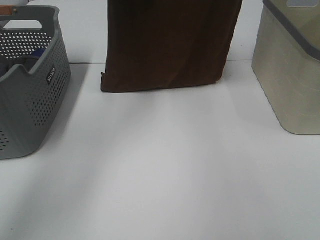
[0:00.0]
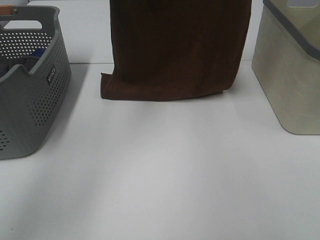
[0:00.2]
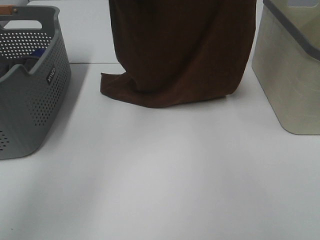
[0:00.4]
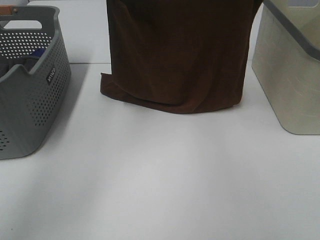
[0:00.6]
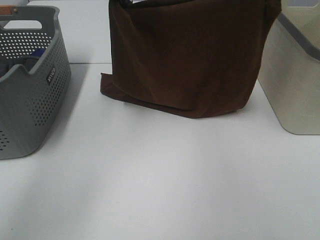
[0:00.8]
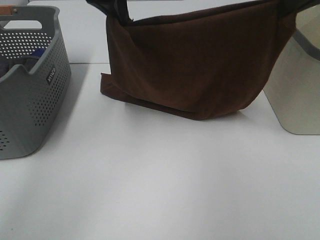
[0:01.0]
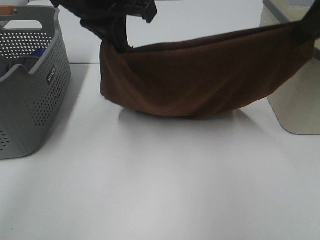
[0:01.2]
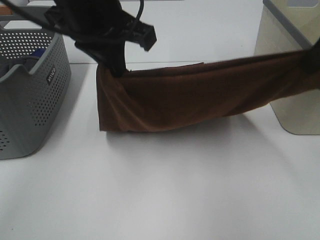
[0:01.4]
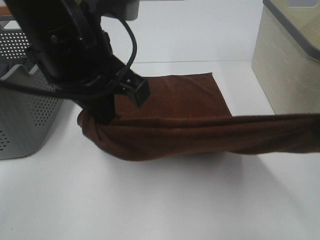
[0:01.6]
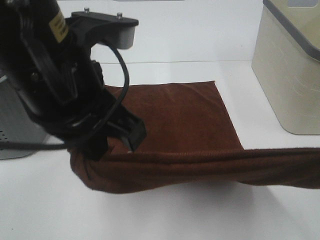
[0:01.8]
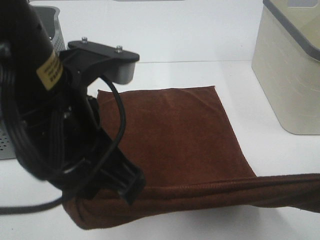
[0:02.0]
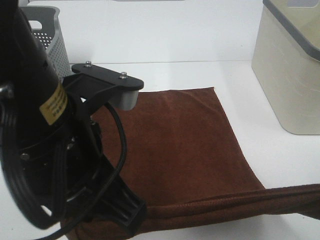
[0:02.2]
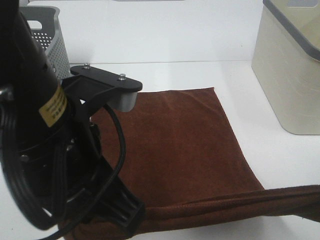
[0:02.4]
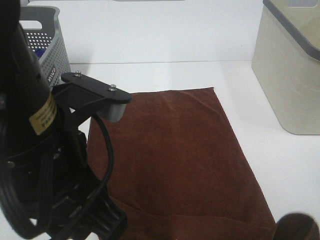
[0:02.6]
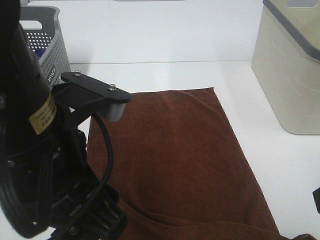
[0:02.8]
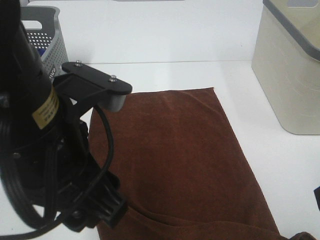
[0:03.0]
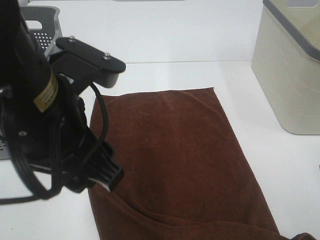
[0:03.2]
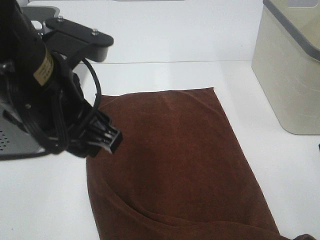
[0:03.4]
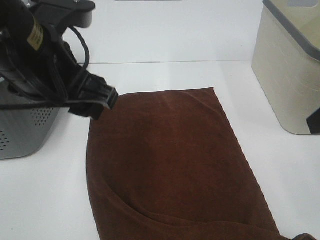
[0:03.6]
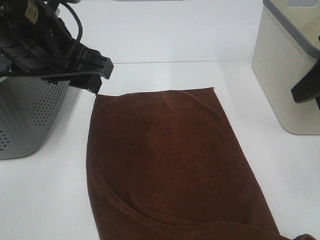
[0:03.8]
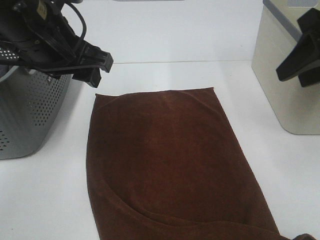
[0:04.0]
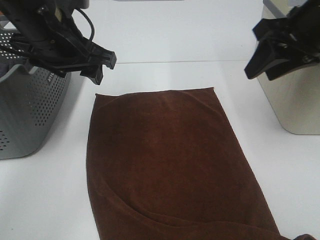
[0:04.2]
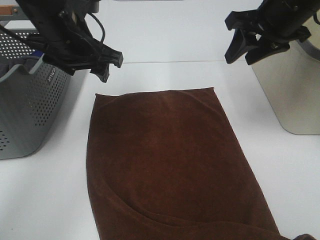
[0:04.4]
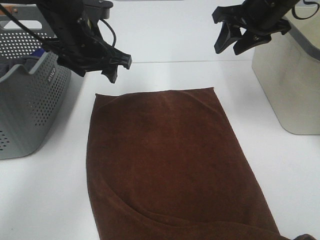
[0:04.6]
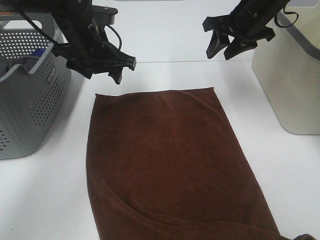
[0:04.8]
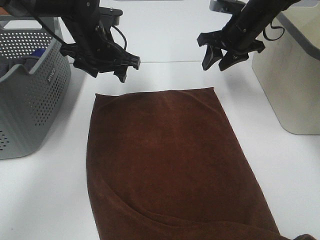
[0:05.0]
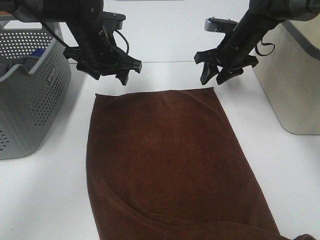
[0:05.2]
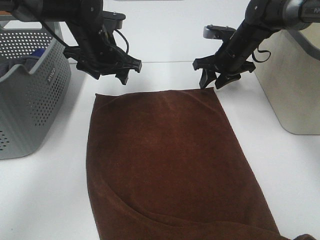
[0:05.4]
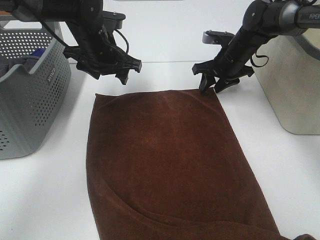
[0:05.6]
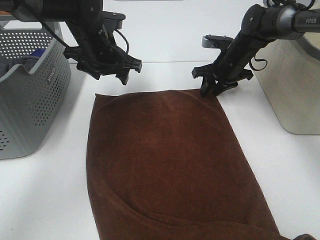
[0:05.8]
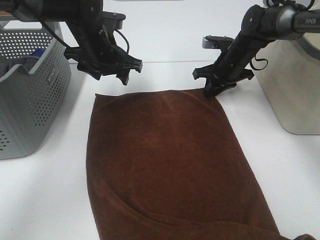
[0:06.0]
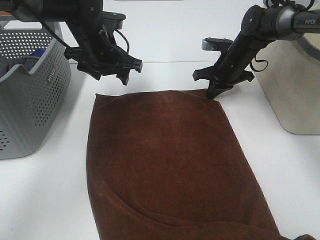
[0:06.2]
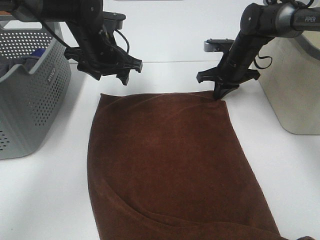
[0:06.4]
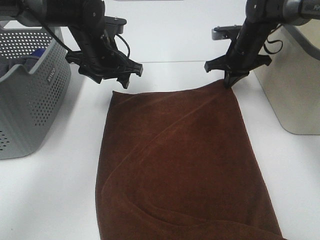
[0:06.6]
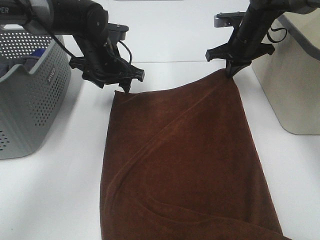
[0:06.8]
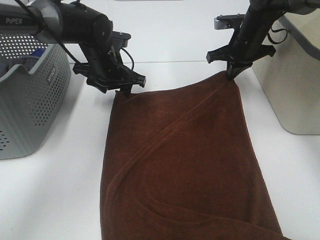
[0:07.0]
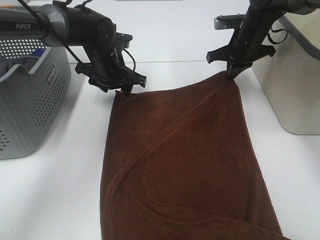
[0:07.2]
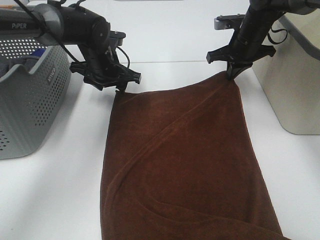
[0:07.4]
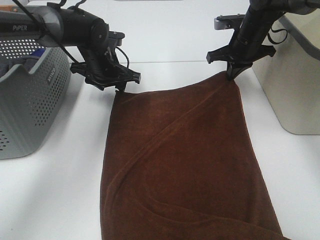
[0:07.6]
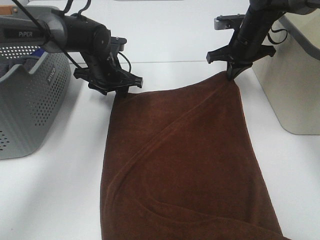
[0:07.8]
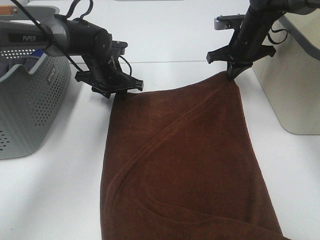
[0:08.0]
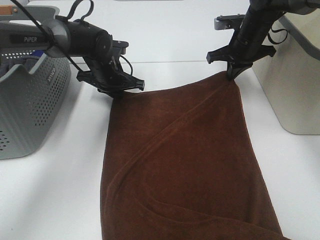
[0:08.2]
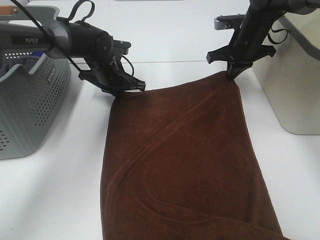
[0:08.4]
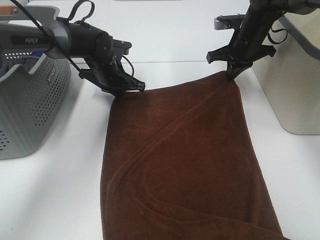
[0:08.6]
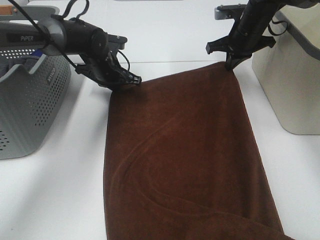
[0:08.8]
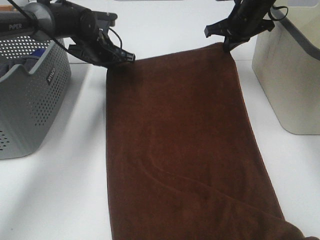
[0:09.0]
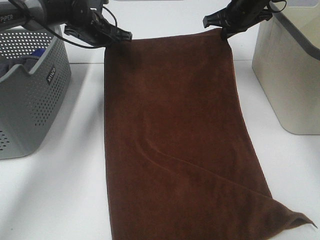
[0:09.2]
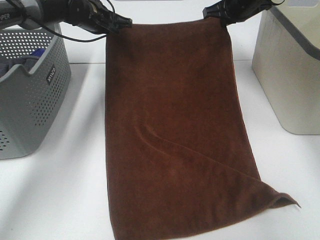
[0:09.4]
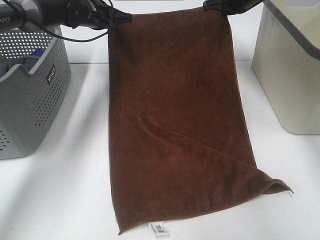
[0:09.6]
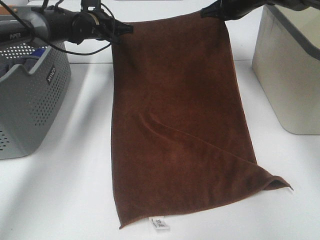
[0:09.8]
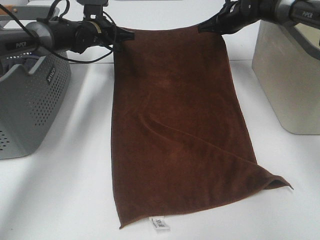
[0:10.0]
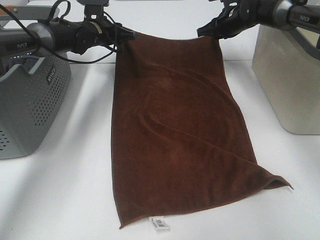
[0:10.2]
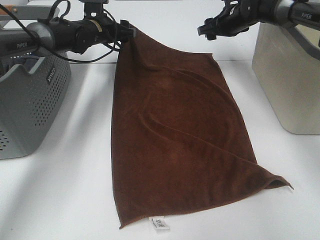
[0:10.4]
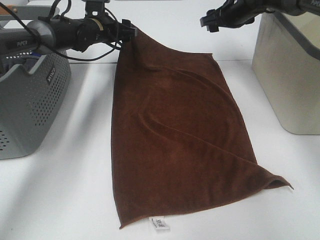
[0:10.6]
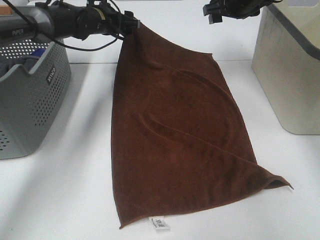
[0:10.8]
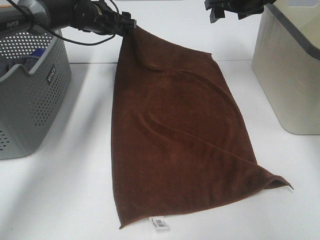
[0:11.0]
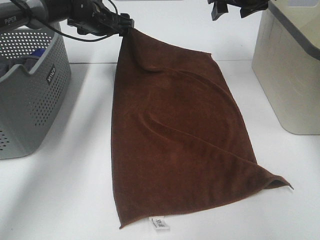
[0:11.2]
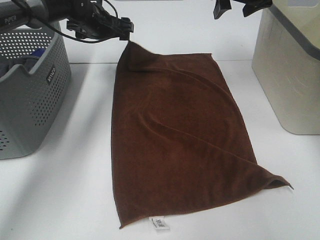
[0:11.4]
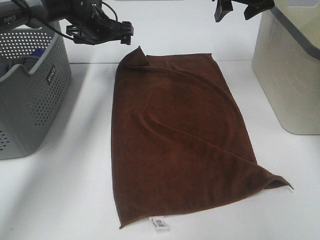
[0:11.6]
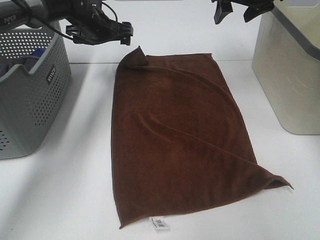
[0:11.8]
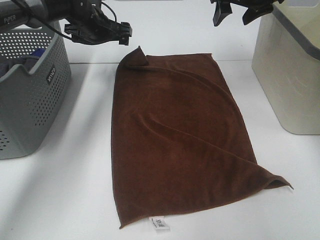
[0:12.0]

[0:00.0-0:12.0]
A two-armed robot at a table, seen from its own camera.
Task of the whole recording: Remove the towel and place it.
Step, 0:00.0 to 0:05.6: Left hand:adjust the brown towel.
Step, 0:00.0 to 0:05.6: Right hand:adjust the brown towel.
0:00.0 to 0:01.6: The left gripper heads backward, covering about 25 cm. The right gripper shifts some 30 cm backward and downward.
0:01.6 to 0:03.0: The grippers both shift backward by roughly 5 cm. The right gripper opens up; the left gripper opens.
0:03.0 to 0:04.4: Both grippers travel together forward, about 25 cm.
0:04.4 to 0:06.0: The right gripper is displaced downward and forward by roughly 20 cm, and closes up; the left gripper is displaced forward and downward by approximately 10 cm.
0:06.0 to 0:07.6: The right gripper shifts approximately 5 cm upward, while the left gripper is displaced downward by roughly 5 cm.
0:07.6 to 0:09.0: The right gripper ends up roughly 5 cm from where it was. Meanwhile the left gripper shifts by approximately 5 cm, and closes its fingers.
0:09.0 to 0:10.4: The left gripper opens up. The right gripper changes place by approximately 5 cm, and opens up.
0:10.4 to 0:12.0: The right gripper travels upward and backward by roughly 15 cm.

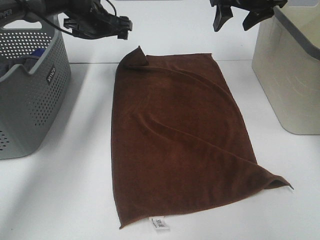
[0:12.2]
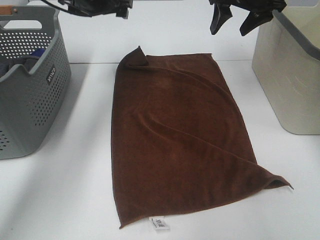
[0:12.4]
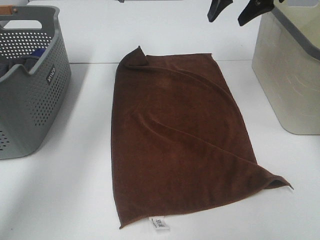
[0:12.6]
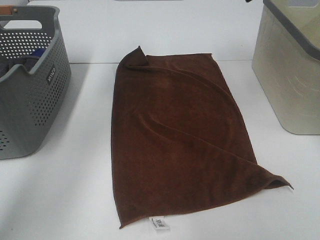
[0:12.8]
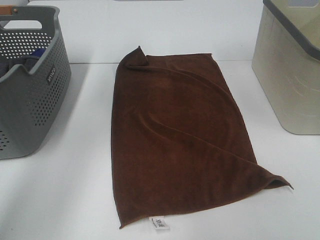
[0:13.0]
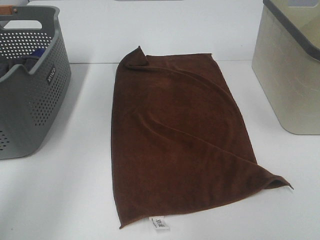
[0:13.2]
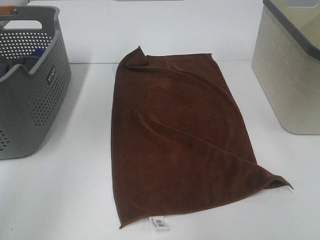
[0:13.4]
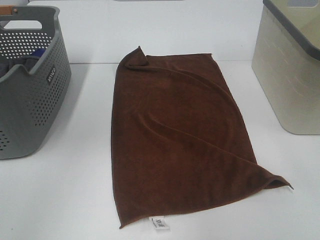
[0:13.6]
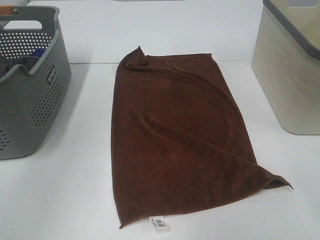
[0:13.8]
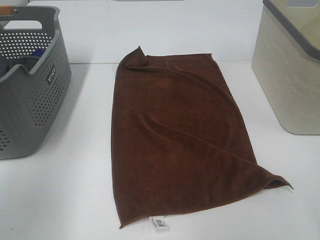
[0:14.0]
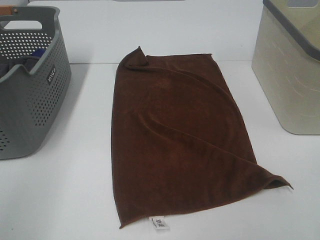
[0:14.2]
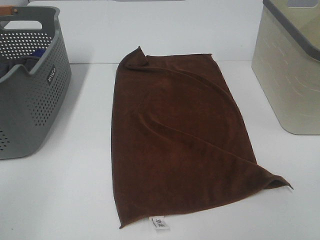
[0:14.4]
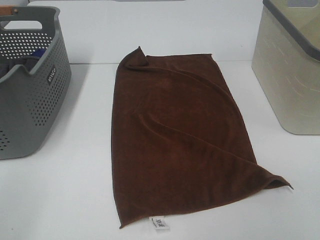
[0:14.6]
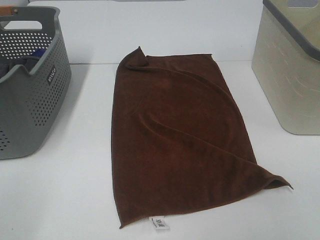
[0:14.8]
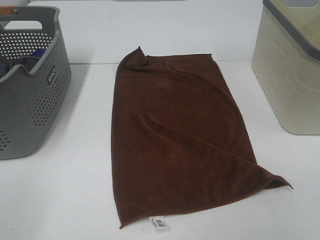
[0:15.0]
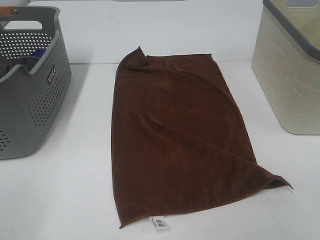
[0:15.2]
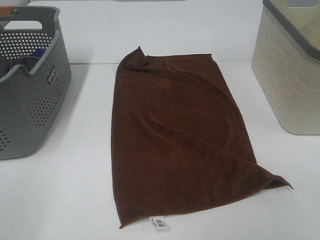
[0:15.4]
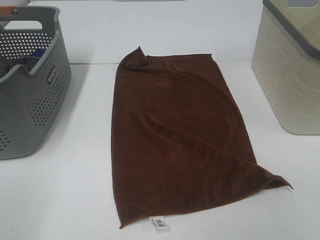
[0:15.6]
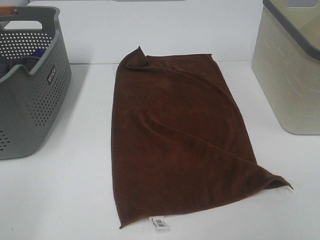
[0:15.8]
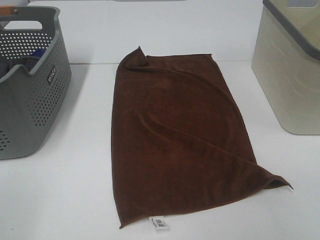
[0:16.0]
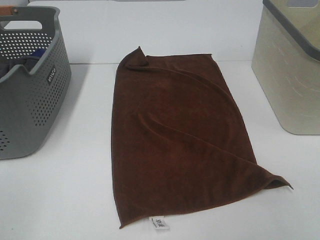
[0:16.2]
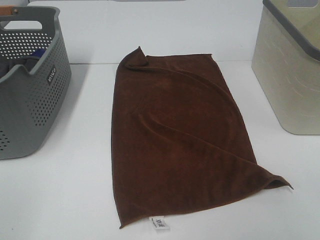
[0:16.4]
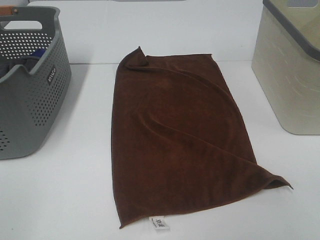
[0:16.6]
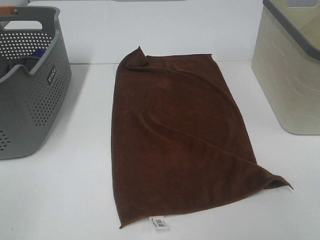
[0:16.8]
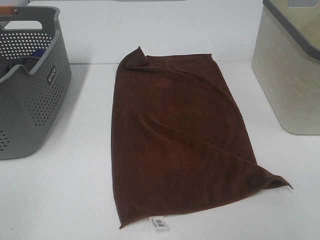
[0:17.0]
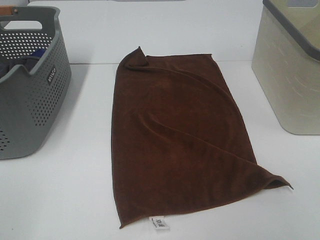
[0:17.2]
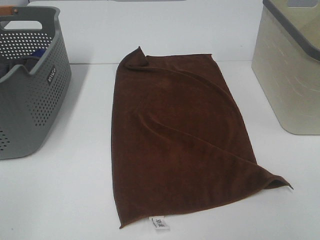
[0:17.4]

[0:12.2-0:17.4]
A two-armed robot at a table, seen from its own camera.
Task of the whole recording: Remove the towel and place it.
0:12.2 to 0:14.0: Both grippers travel together backward, approximately 40 cm.
0:14.0 to 0:15.6: The left gripper moves backward and downward, about 15 cm.

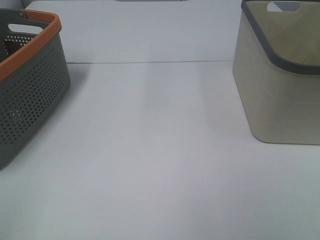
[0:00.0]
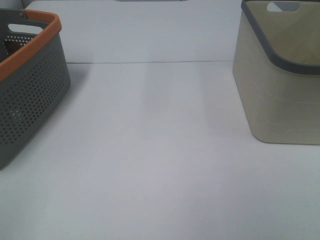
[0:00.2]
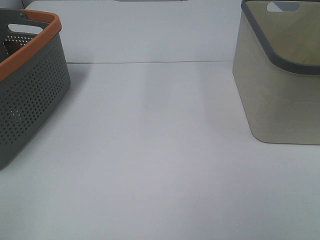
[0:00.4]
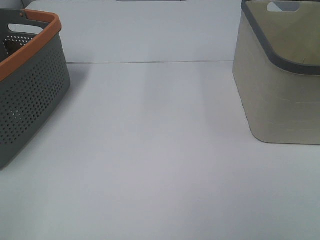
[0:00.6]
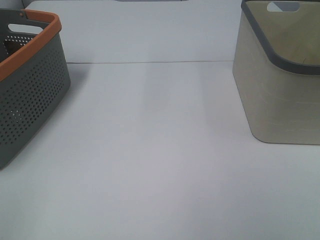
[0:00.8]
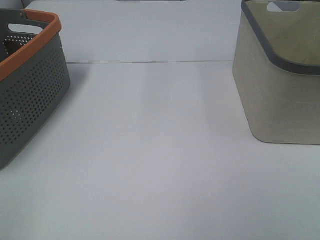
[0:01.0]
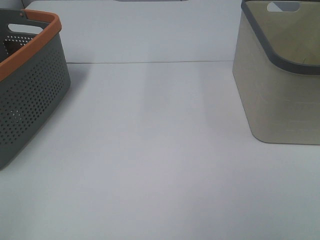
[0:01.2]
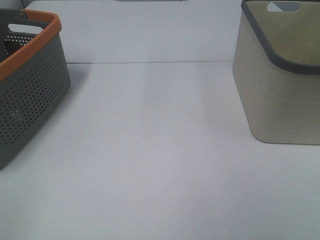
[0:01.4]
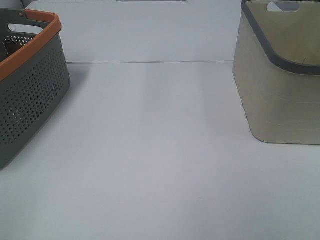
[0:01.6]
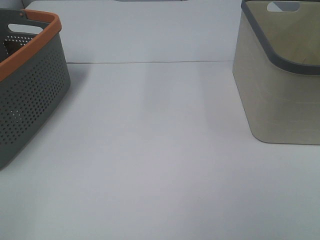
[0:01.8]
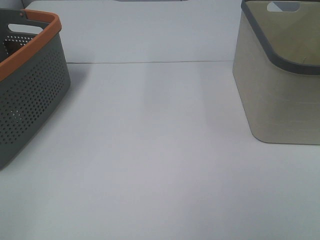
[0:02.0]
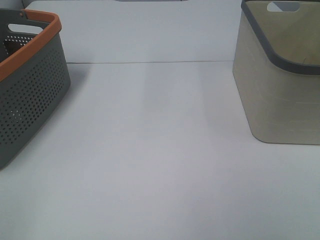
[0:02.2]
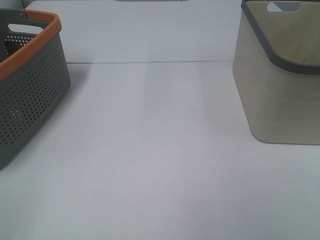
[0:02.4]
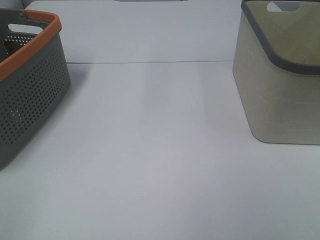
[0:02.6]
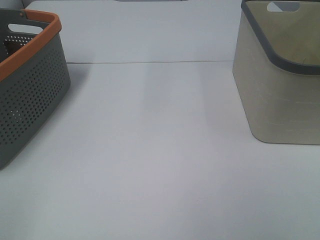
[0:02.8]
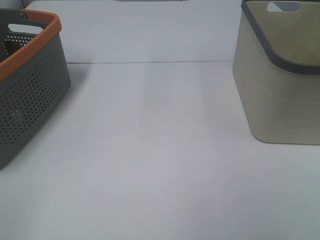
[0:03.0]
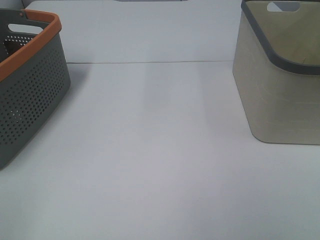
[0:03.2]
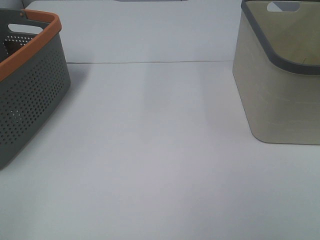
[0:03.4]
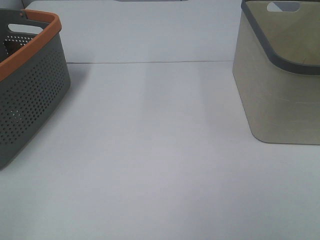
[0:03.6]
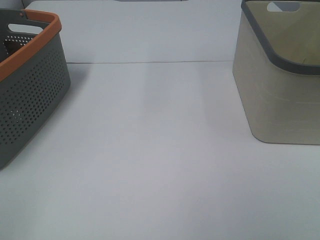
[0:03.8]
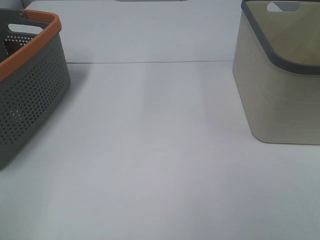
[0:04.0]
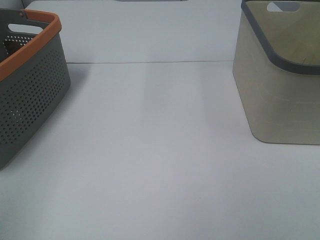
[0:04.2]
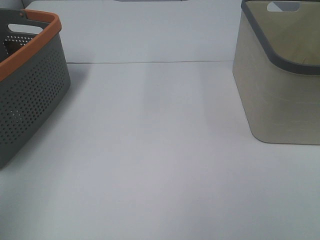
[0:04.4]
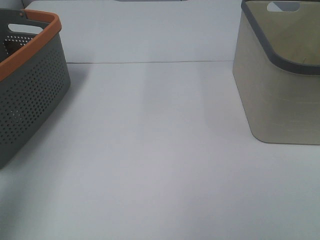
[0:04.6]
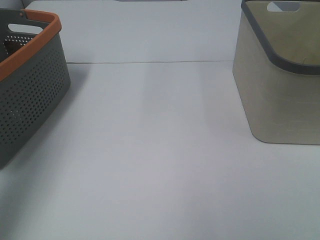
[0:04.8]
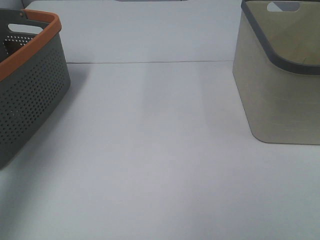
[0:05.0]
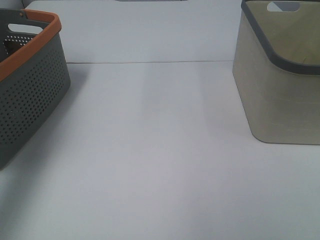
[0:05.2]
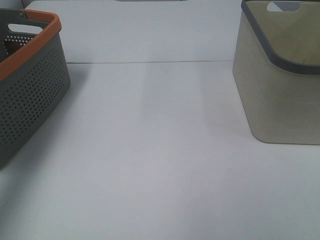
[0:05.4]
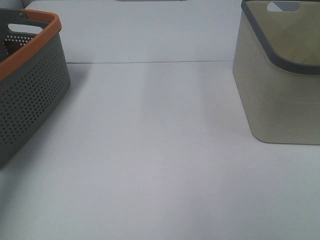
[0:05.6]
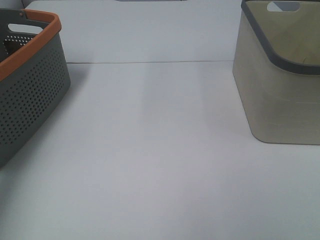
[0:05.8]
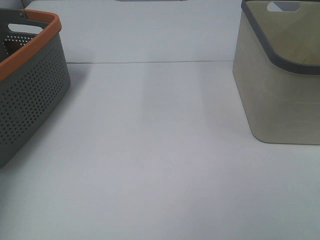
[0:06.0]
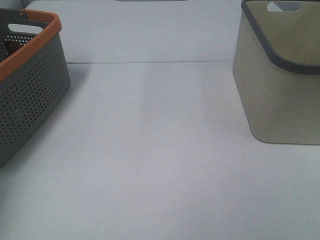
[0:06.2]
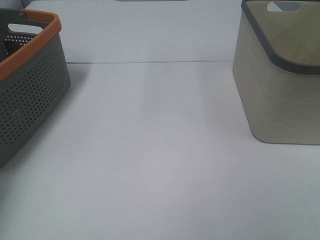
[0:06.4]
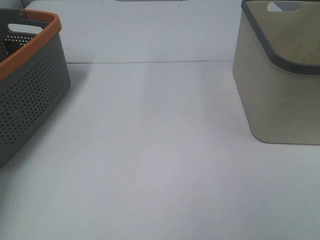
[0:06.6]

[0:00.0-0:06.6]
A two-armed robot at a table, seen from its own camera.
Task of the whole recording: Remove the towel and place it.
0:00.0 to 0:03.2: Both grippers stay about where they are.
0:03.2 to 0:05.0: The left gripper shifts approximately 30 cm forward and upward.
0:05.0 to 0:06.6: The left gripper goes some 25 cm forward and downward.
